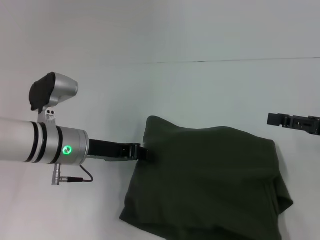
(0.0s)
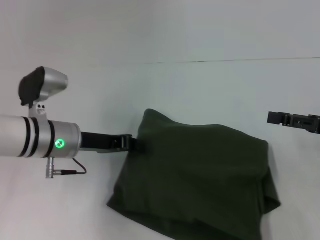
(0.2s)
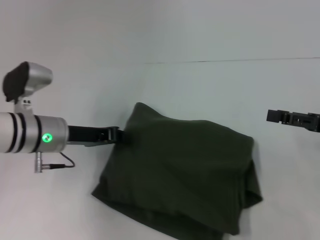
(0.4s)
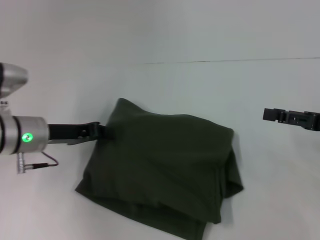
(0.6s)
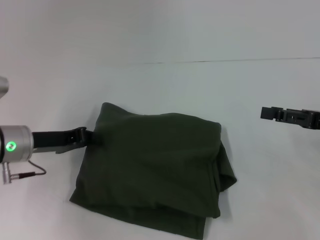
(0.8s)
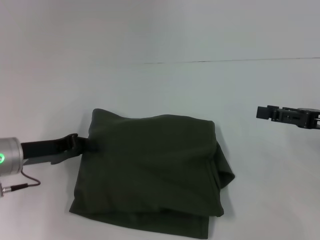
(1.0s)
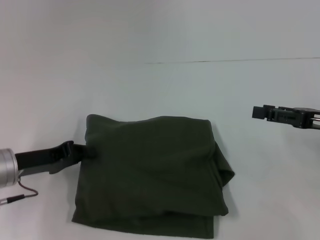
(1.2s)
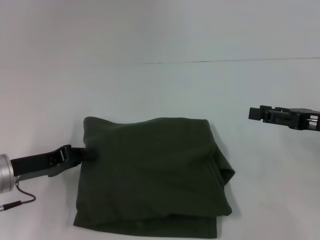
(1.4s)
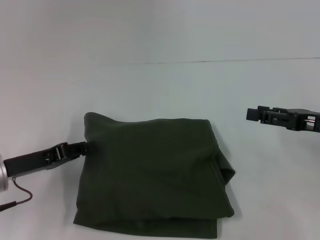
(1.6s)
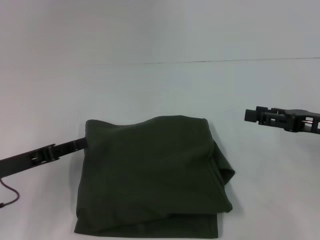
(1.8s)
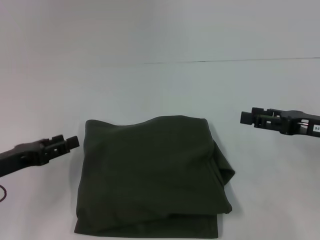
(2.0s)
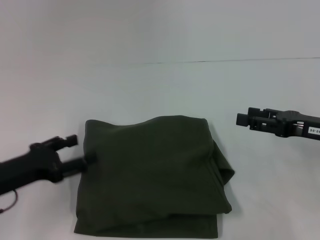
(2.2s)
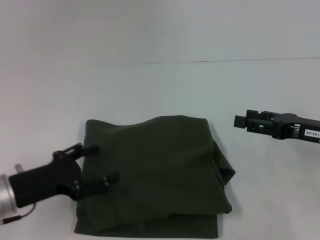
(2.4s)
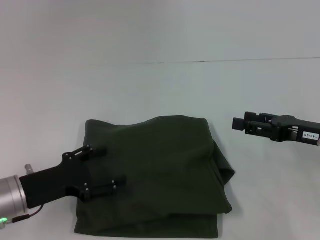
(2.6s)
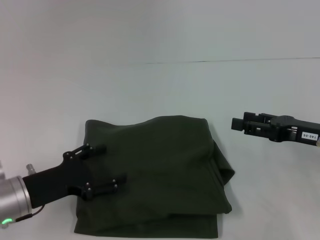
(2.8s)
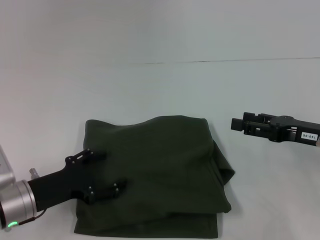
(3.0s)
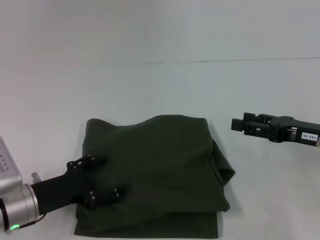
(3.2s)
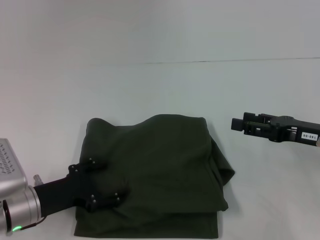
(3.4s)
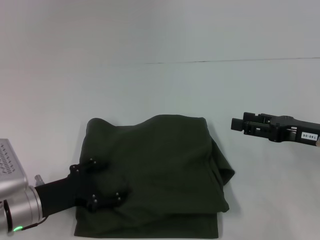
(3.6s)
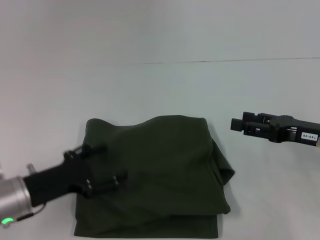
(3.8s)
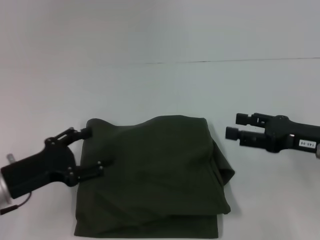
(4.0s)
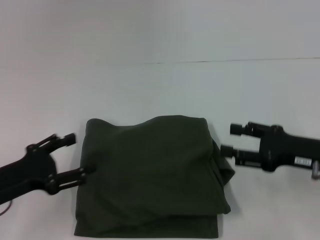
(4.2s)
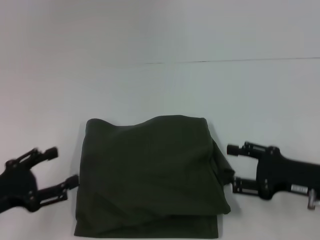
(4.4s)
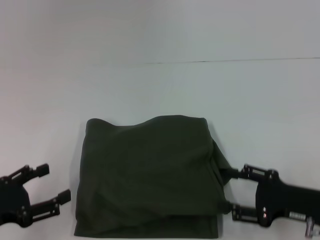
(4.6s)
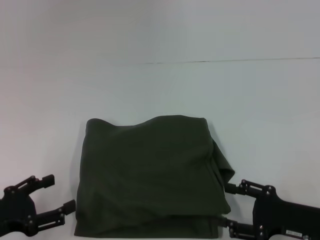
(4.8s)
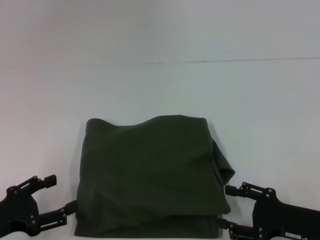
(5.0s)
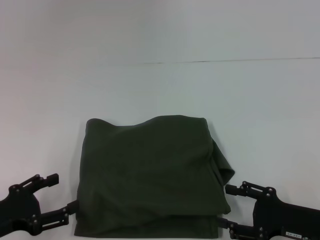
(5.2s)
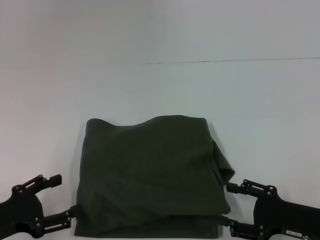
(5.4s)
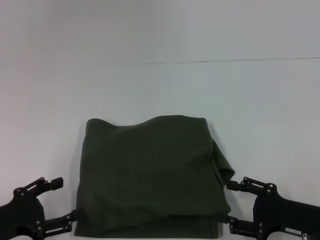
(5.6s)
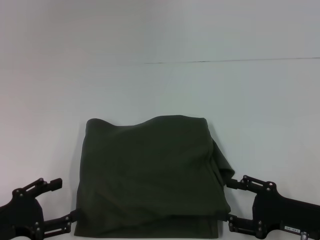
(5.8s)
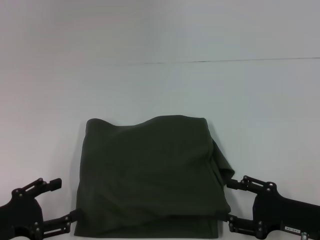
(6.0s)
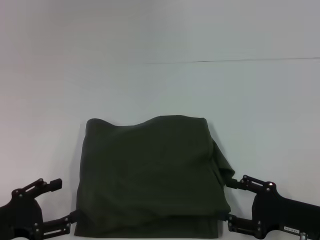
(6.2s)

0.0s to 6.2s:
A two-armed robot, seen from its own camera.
0.0s to 1.6s: The left gripper is displaced to the left and backward by some 10 cm.
1.6s to 3.2s: The left gripper shifts by about 5 cm, and opens.
3.2s to 4.6s: The left gripper goes approximately 10 cm to the left and backward; the right gripper goes roughly 10 cm backward and downward.
4.6s to 6.2s: The grippers stay close to where they were, moving slightly.

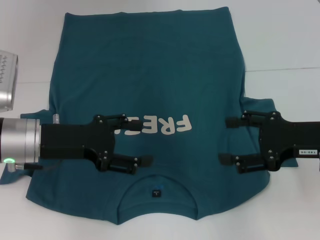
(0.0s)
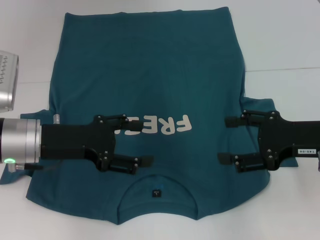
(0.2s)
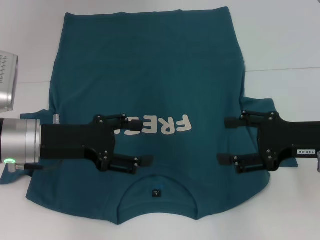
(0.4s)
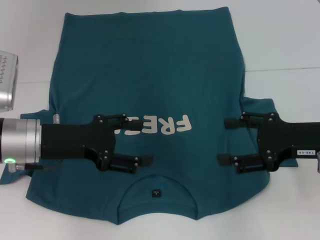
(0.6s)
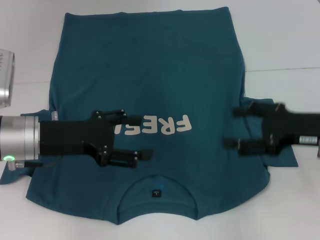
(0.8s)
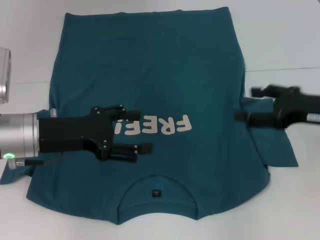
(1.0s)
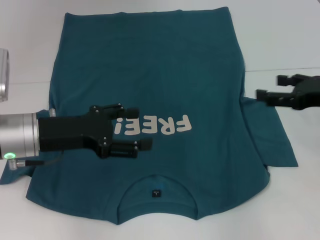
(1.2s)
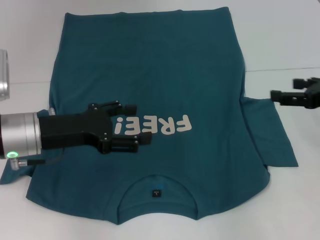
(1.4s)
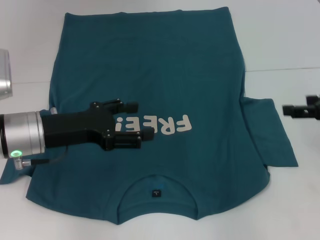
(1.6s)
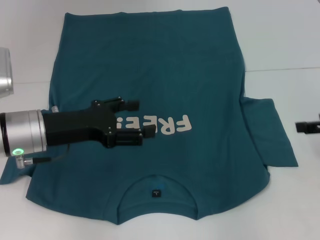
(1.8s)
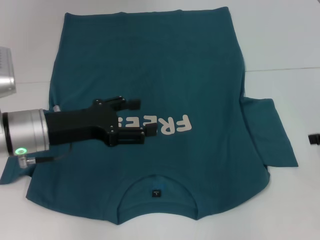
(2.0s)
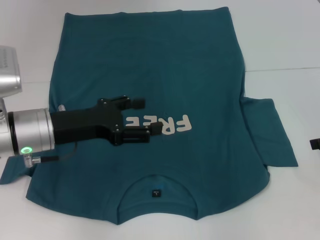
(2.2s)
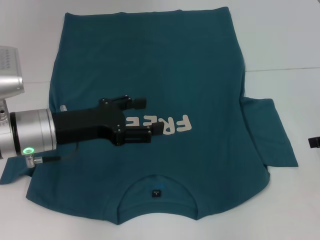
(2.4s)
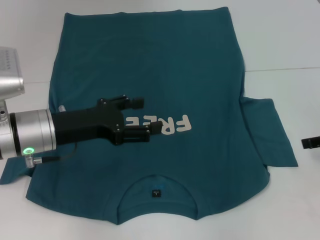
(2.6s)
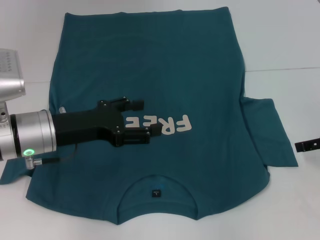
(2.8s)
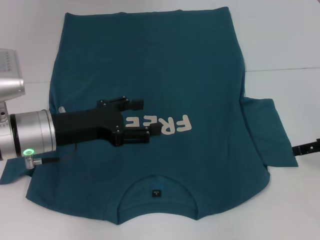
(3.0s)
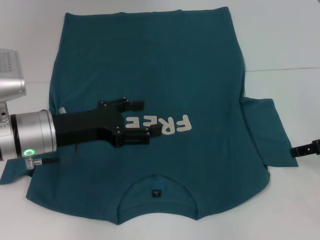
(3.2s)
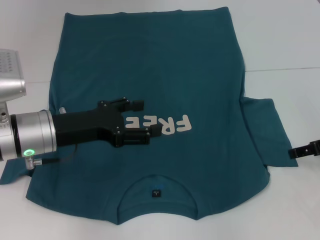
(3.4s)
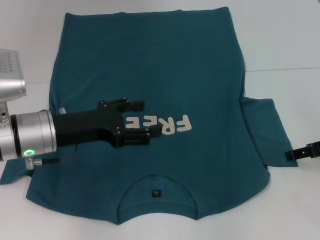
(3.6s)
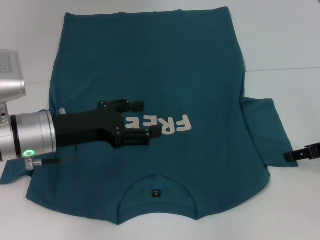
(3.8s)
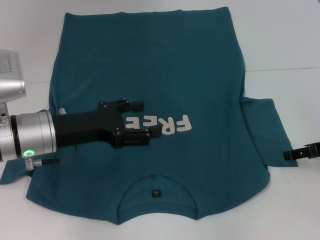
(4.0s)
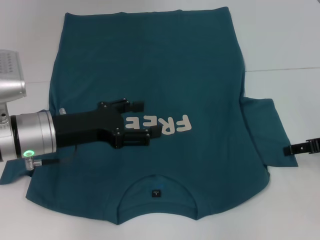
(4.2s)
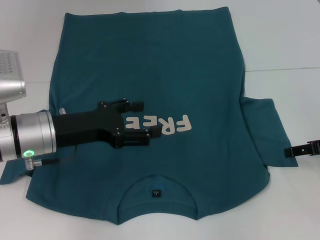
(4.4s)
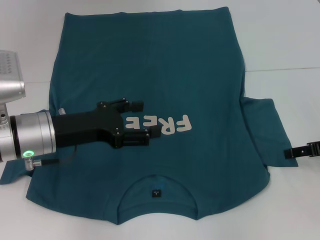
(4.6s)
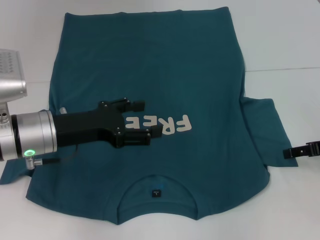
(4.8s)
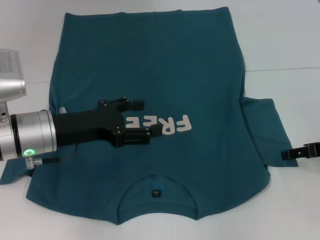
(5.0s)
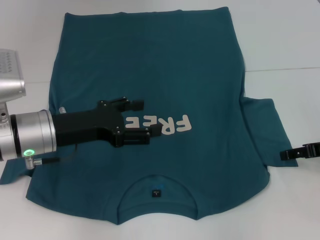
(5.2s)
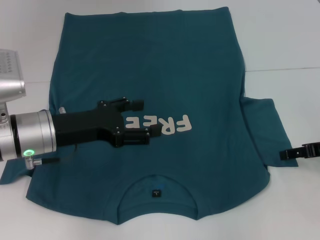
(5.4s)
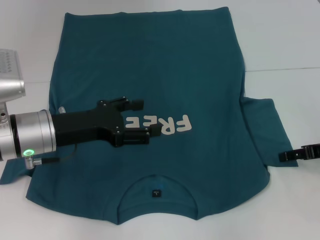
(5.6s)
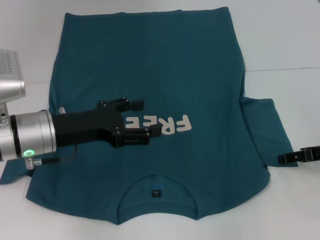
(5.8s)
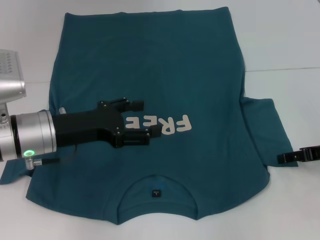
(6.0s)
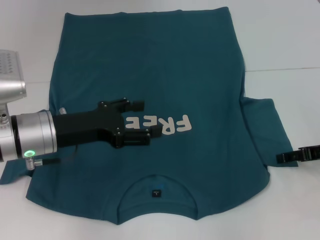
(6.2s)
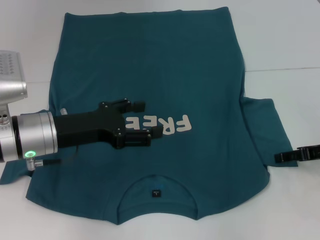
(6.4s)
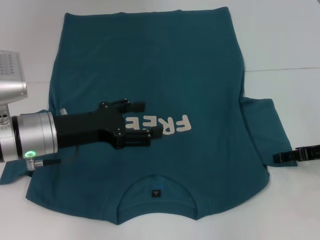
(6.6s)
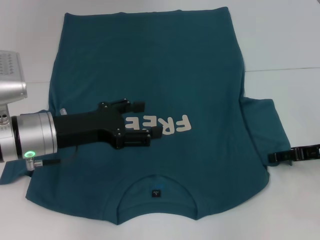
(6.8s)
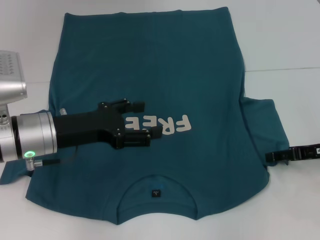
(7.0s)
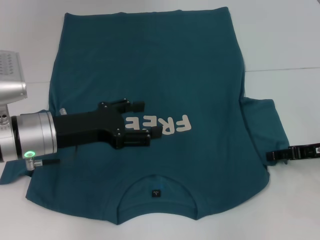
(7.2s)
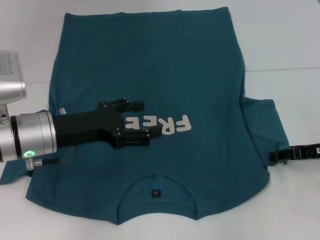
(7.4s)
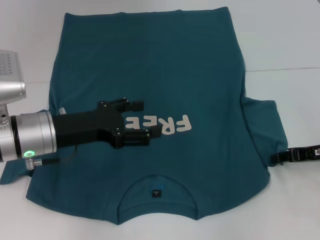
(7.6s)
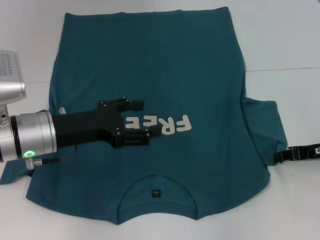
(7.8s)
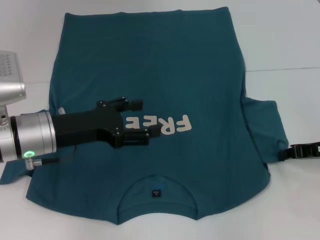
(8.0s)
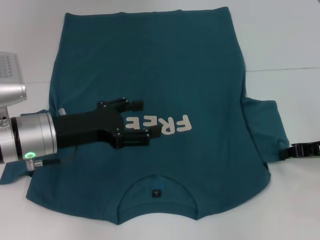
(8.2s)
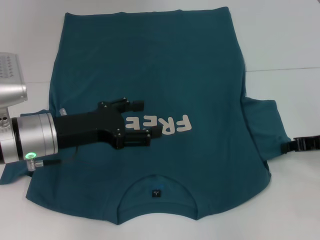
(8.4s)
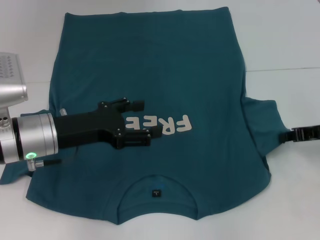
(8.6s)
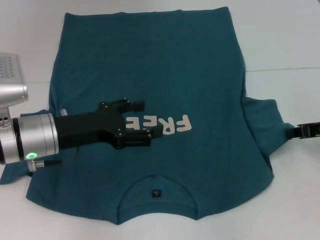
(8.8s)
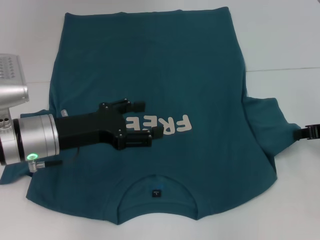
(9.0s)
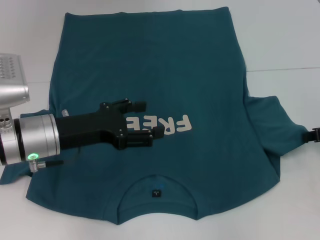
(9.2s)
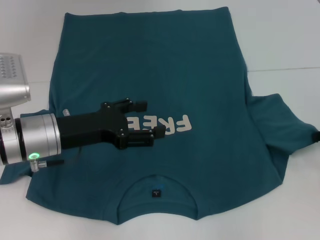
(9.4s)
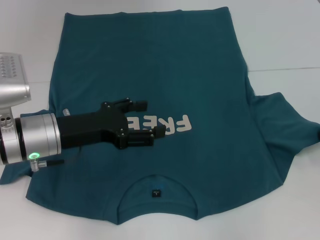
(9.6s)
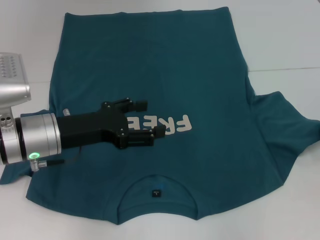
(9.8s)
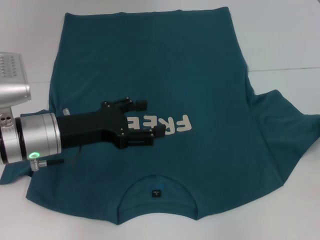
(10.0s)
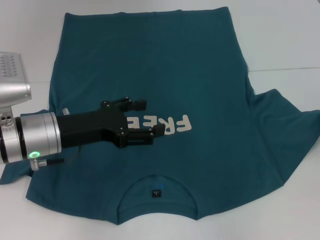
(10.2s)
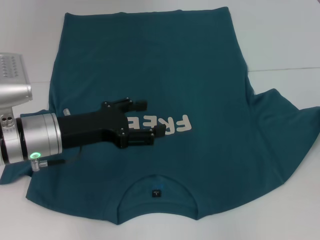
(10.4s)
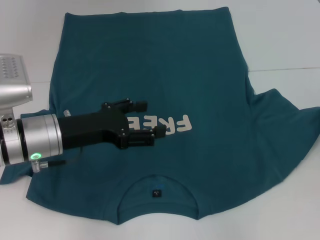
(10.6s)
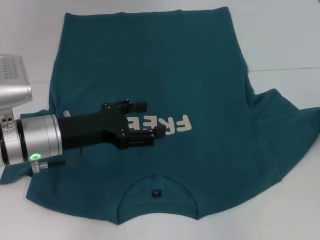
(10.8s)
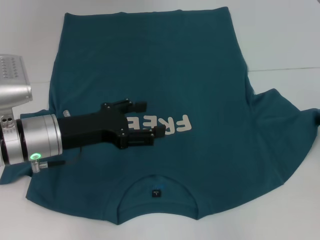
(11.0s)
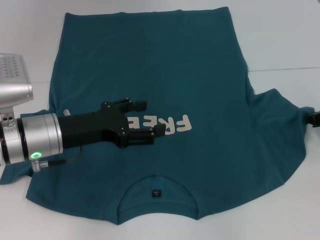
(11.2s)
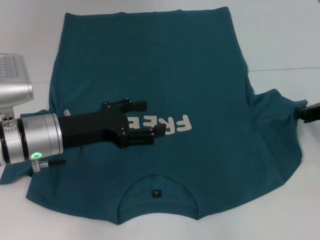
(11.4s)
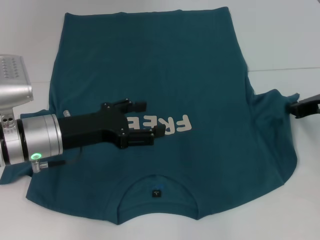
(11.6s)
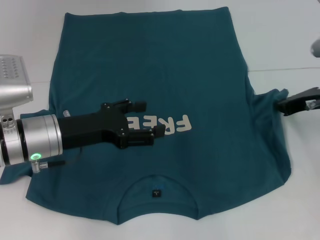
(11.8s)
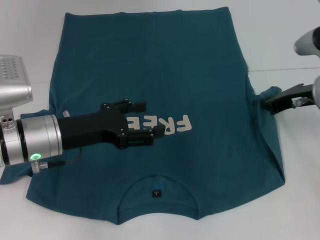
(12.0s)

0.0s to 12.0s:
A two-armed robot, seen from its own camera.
0.0s to 1.6s: The right gripper heads to the right, covering about 5 cm.
3.0s to 4.4s: The grippers make only small movements.
6.0s to 7.6s: The right gripper closes its fingers.
7.6s to 9.0s: The right gripper closes.
9.0s to 10.4s: The grippers stay close to where they were, moving slightly.
10.4s to 12.0s: The right gripper shifts roughly 10 cm to the left.

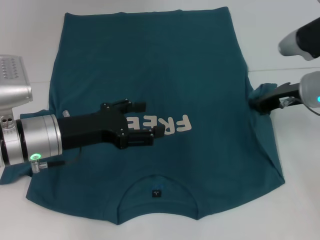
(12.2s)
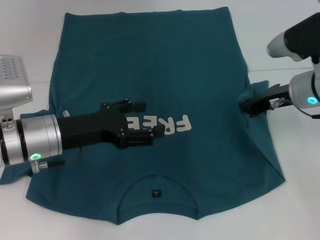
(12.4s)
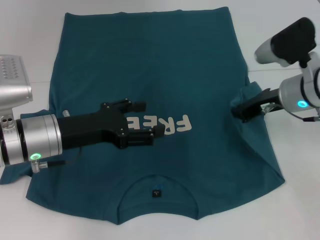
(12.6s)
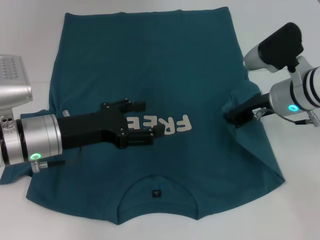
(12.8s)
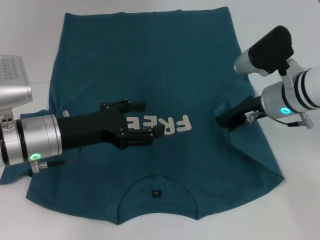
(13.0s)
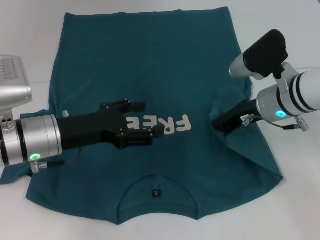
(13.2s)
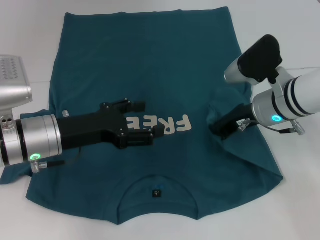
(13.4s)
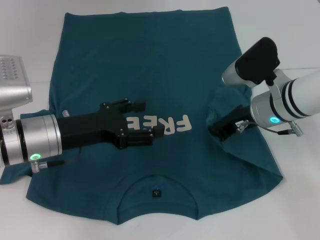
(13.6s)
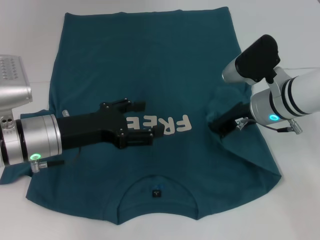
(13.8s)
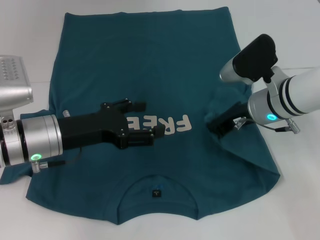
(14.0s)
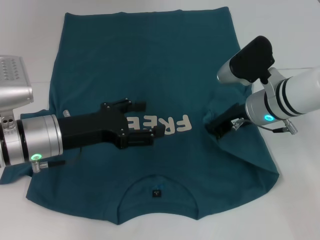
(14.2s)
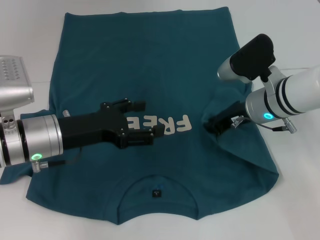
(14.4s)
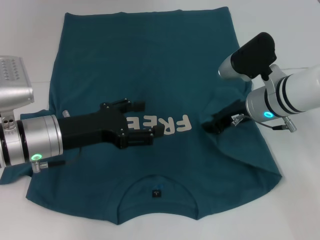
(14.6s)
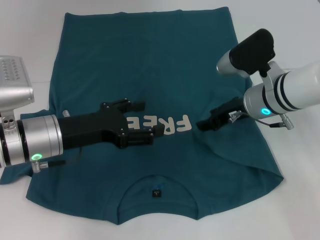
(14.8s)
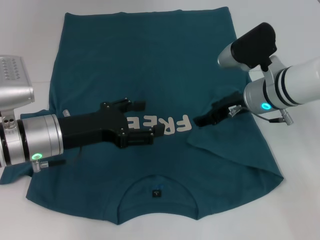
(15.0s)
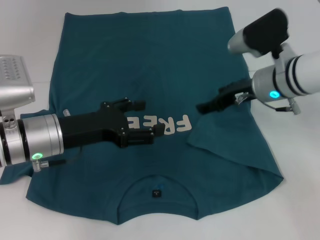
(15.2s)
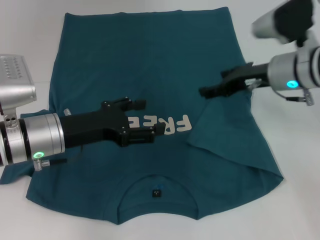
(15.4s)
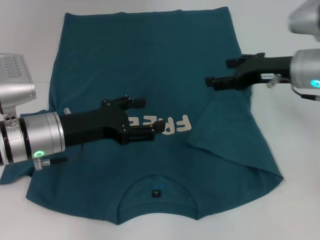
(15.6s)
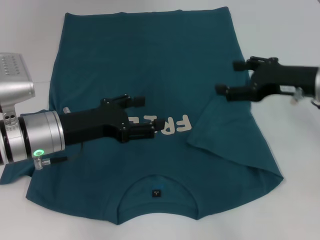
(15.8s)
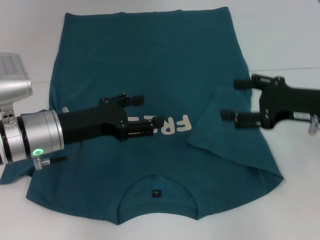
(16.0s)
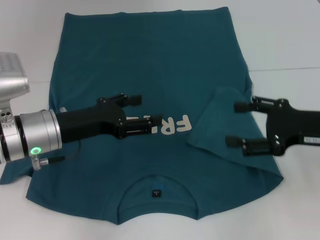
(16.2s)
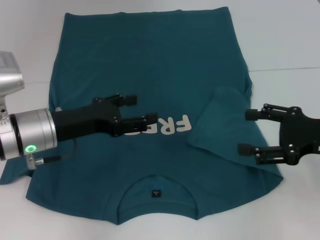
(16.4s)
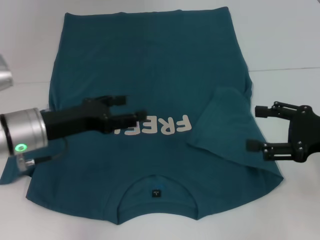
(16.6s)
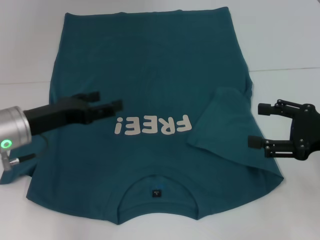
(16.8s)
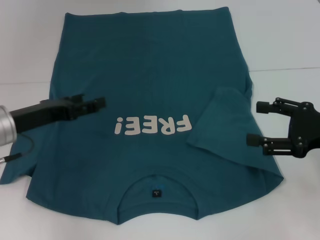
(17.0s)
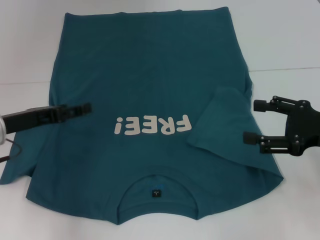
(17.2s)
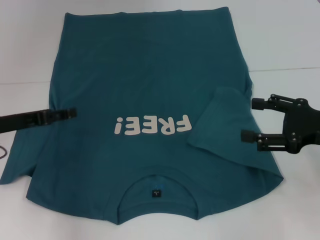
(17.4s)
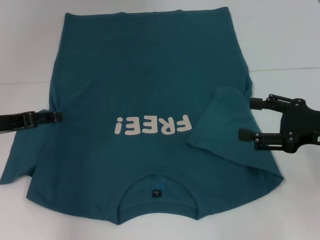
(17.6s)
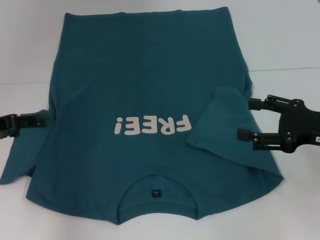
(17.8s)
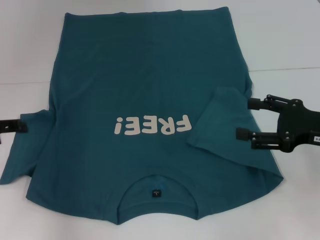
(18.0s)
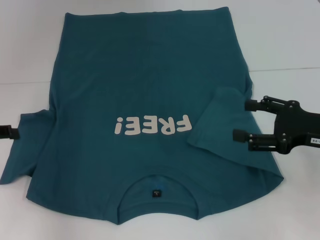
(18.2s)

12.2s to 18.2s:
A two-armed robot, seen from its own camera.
Step, 12.2s to 14.8s: Fold the bottom right sleeve to the right.
12.2s to 13.8s: The right gripper travels to the left by some 5 cm.
13.8s to 15.2s: The right gripper opens.
15.2s to 16.6s: The right gripper is displaced backward and to the right by roughly 20 cm.
16.6s to 18.2s: The left gripper is displaced to the left by about 15 cm.
